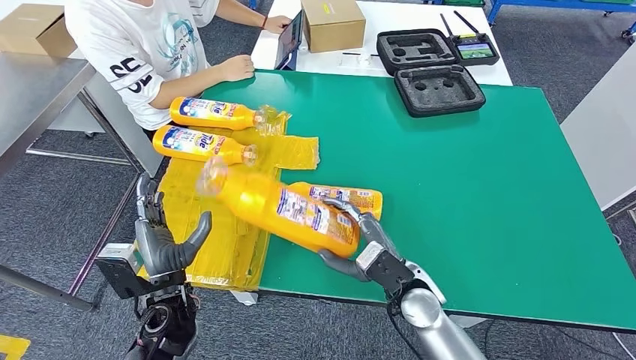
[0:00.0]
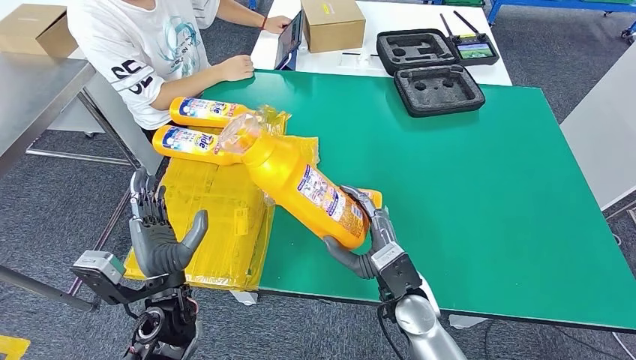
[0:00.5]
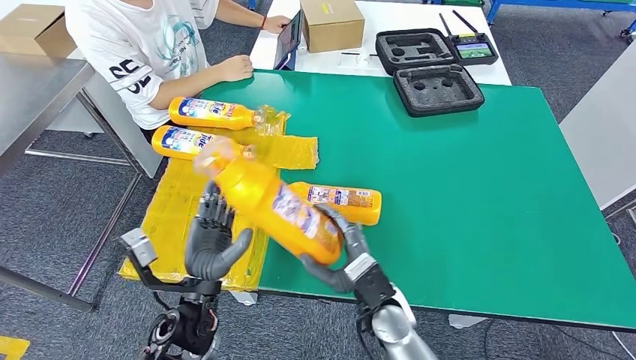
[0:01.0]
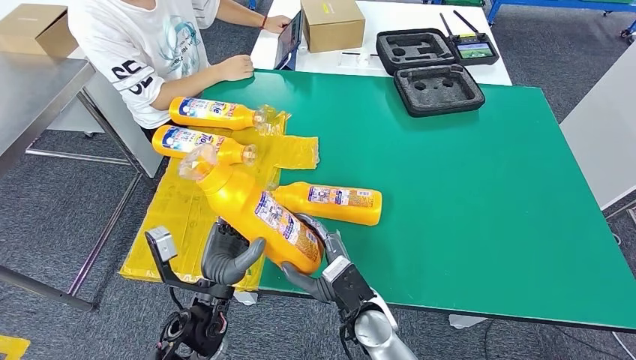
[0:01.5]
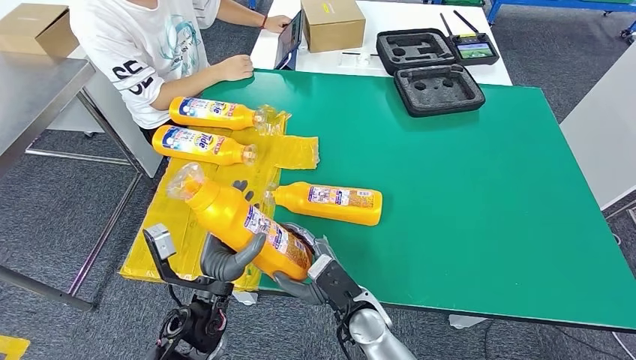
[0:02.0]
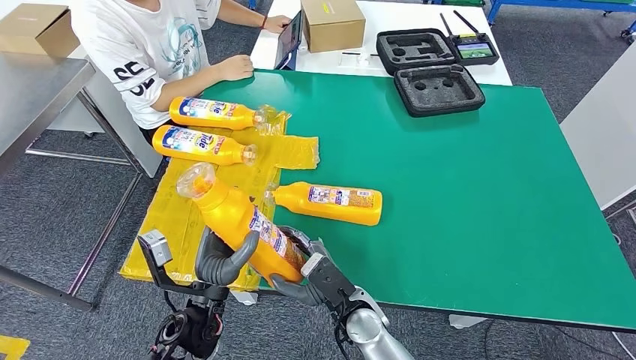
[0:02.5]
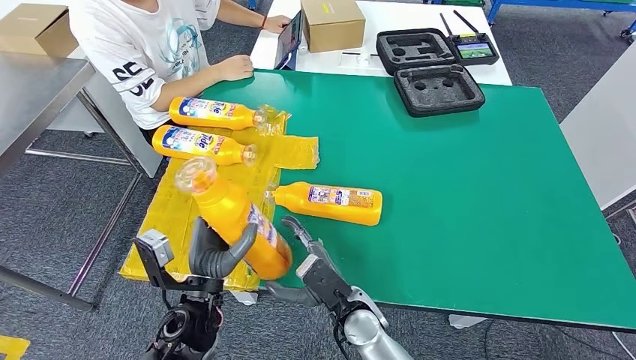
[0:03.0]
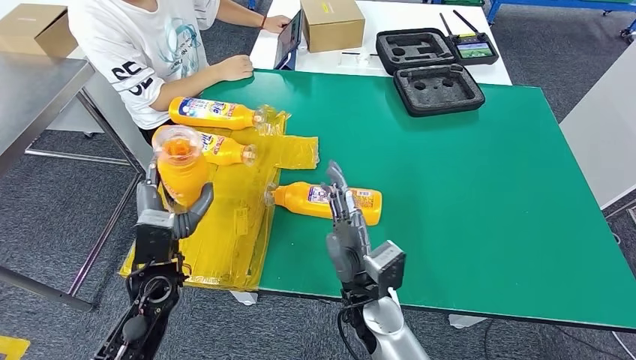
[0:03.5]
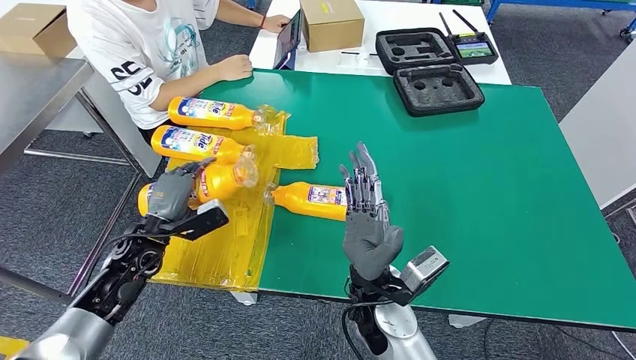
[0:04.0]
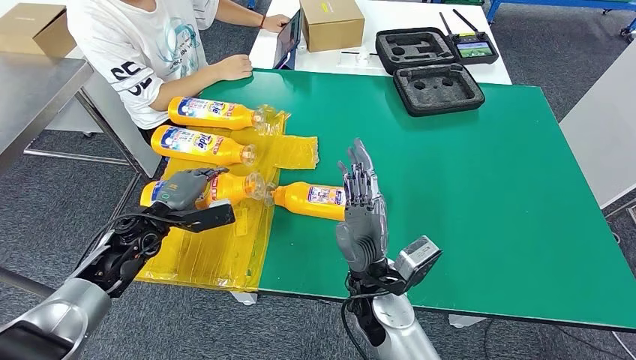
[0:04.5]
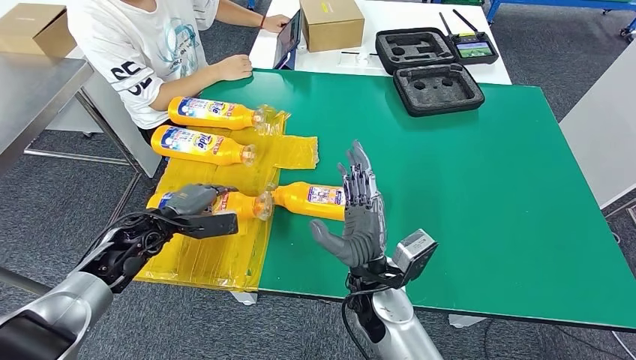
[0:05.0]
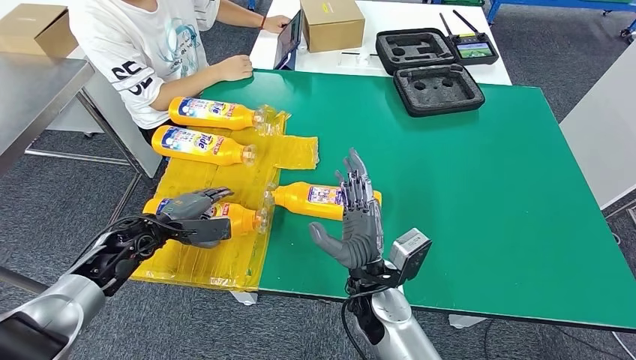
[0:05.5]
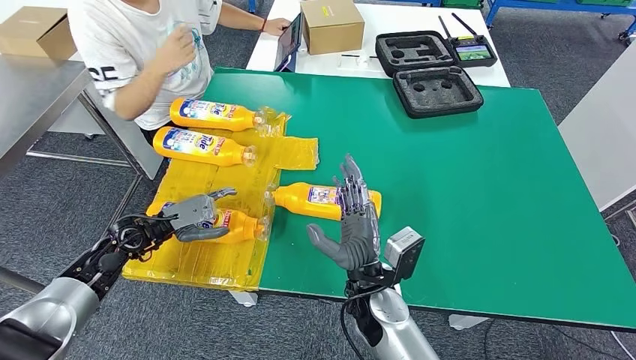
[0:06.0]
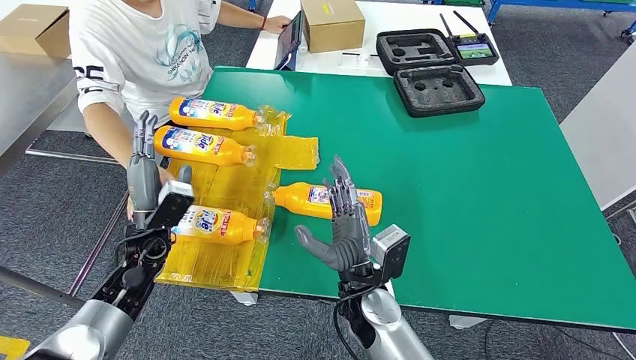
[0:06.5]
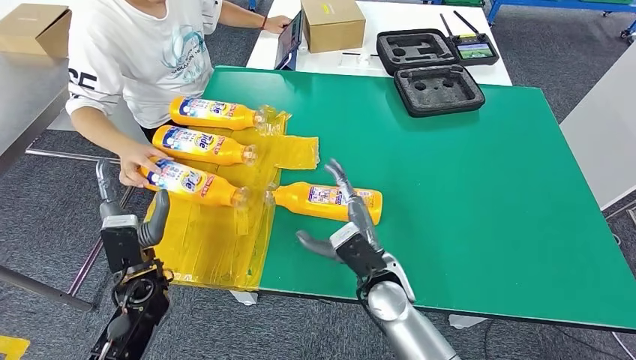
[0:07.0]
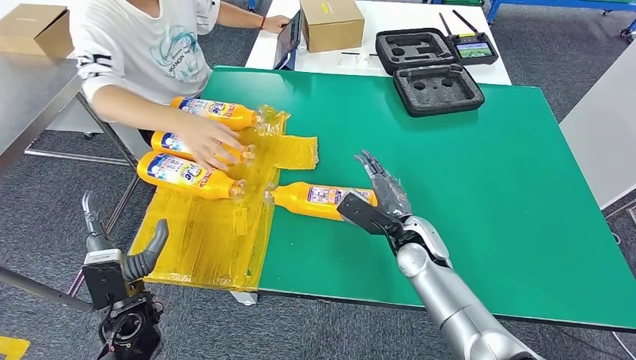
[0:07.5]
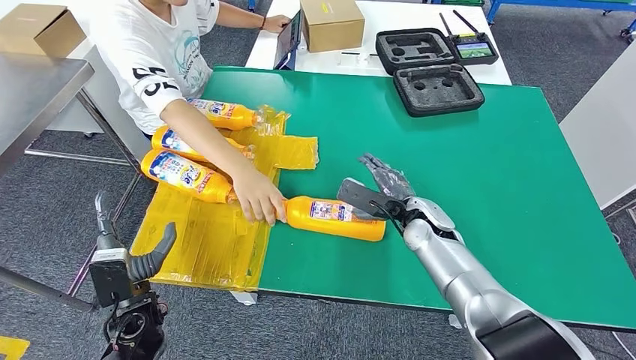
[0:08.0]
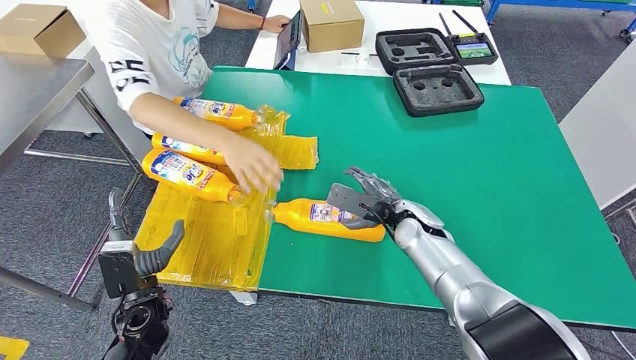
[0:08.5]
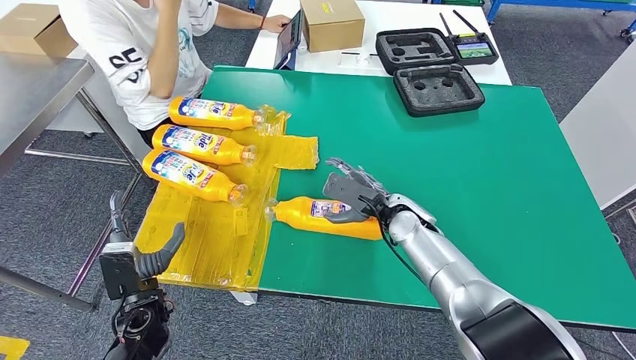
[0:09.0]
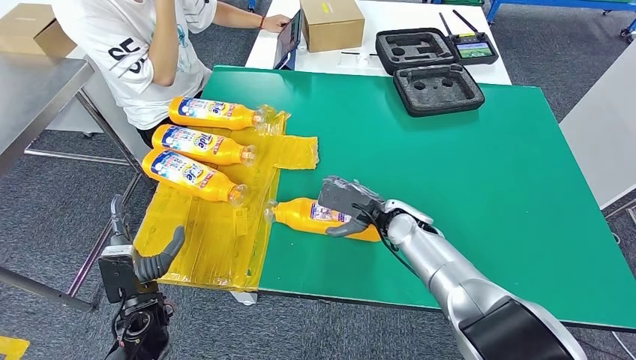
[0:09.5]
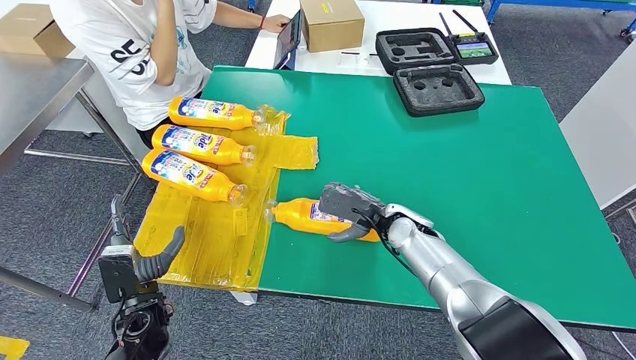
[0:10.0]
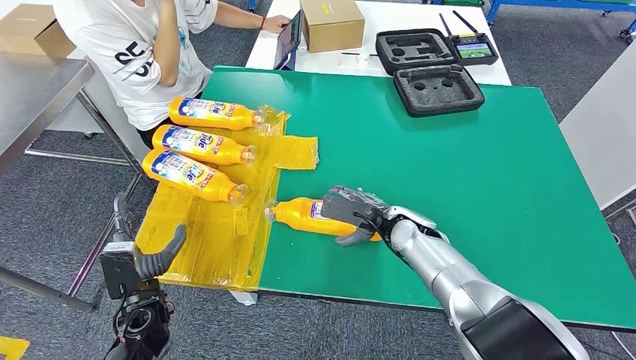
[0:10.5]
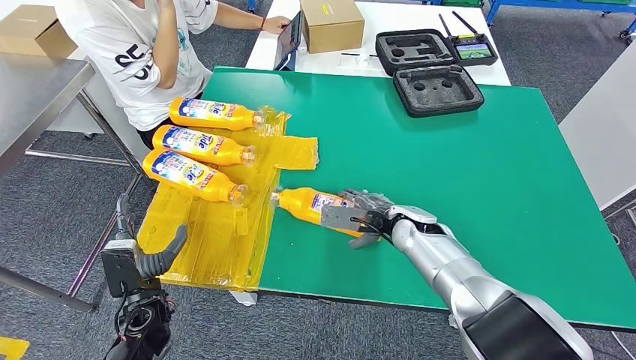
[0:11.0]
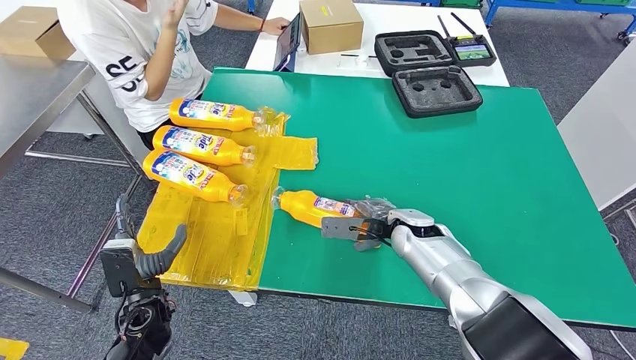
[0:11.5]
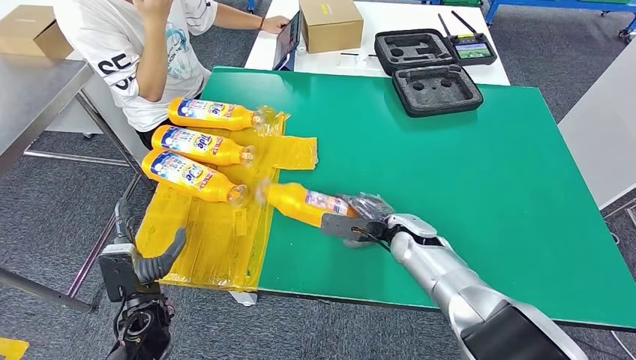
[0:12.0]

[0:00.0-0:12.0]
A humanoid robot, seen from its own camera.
Step, 0:02.0 to 0:05.0: Flip the fast-moving consumer goods bottle to the front side.
0:00.0 to 0:02.0: The left hand travels to the right by roughly 5 cm; the right hand shifts roughly 10 cm to the left.
0:02.0 to 0:04.0: The left hand travels to the left and forward by approximately 20 cm, while the right hand goes about 10 cm upward.

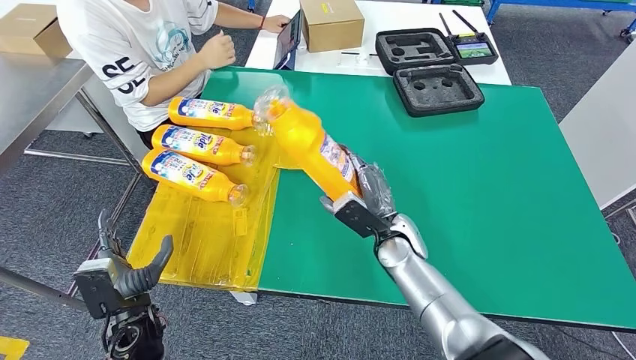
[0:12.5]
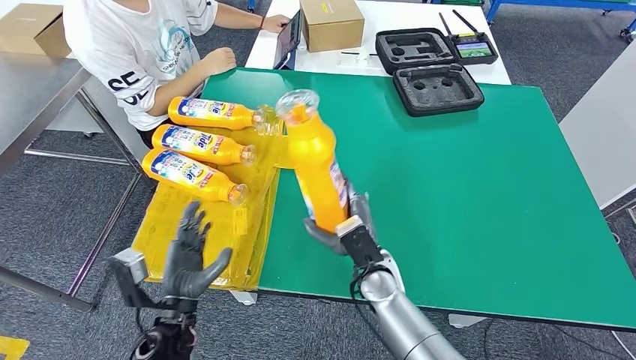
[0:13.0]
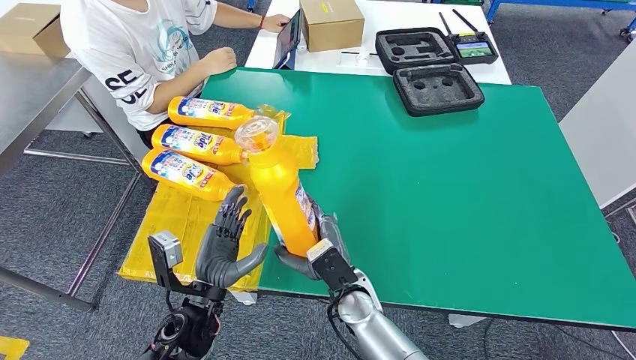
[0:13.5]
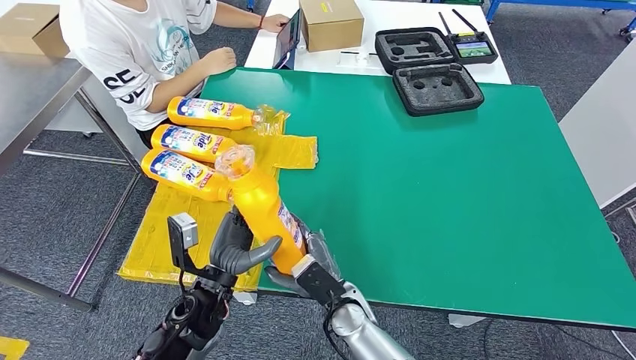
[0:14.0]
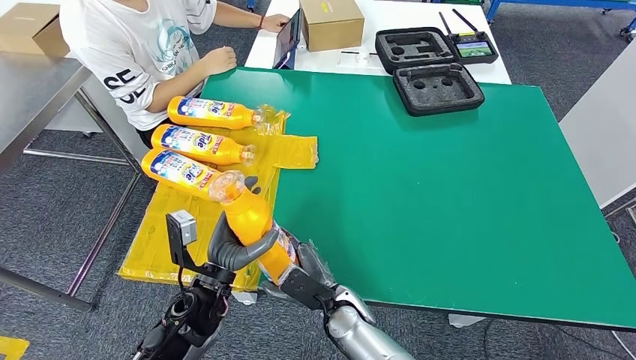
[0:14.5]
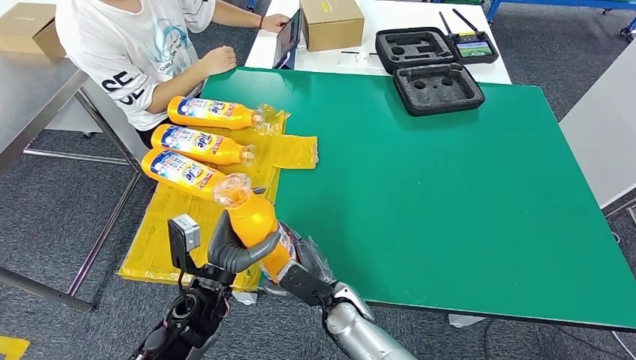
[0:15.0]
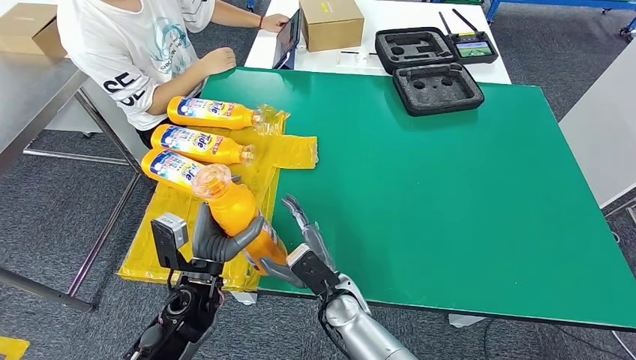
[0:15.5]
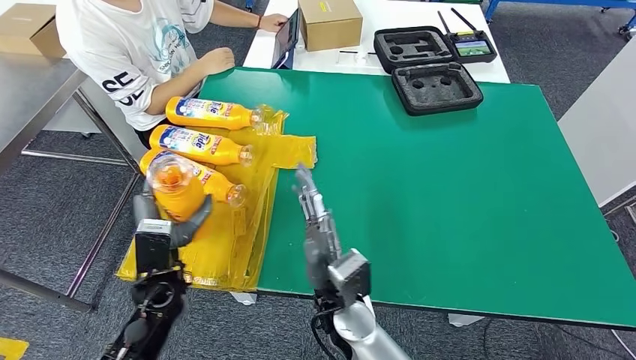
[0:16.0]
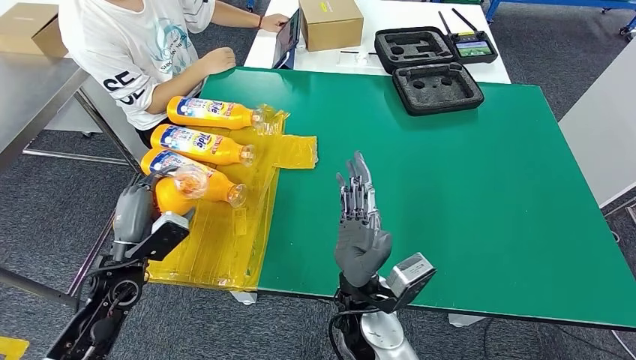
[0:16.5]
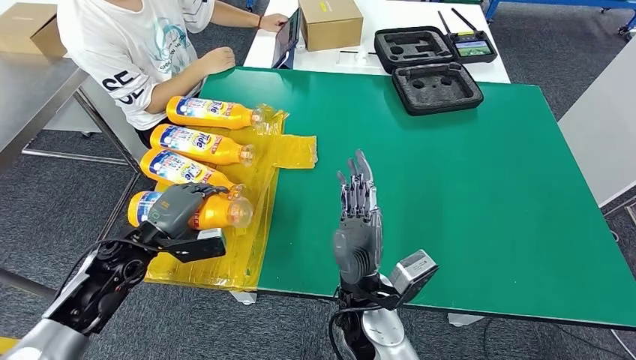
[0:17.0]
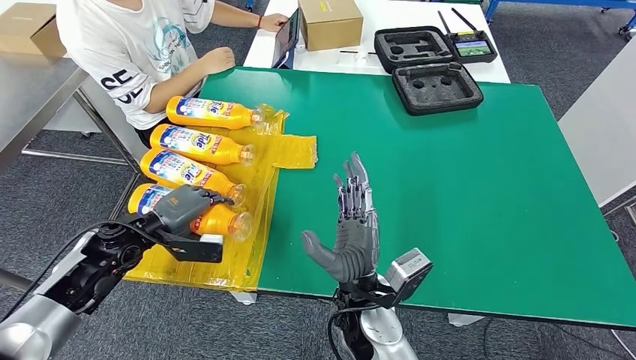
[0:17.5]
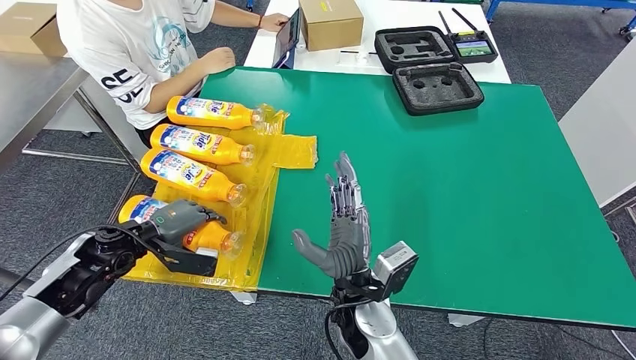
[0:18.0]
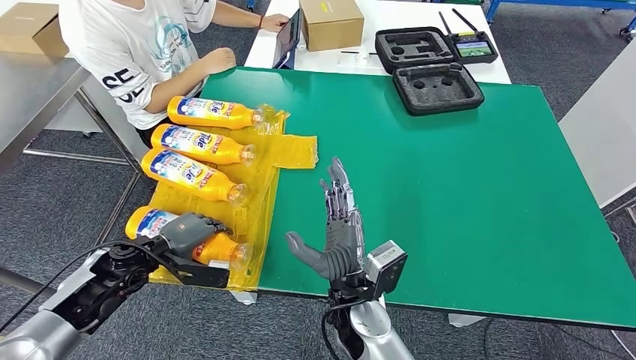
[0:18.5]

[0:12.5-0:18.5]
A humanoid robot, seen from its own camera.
Step, 0:14.5 to 0:18.5: Flip the fast-moving consumer goods bottle to the front side.
0:14.5 to 0:16.5: The left hand goes about 15 cm to the left; the right hand travels upward by about 15 cm.
